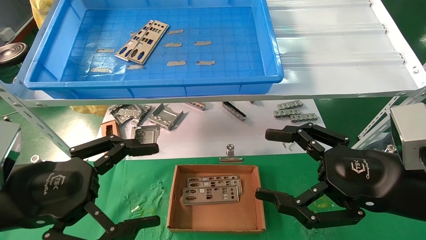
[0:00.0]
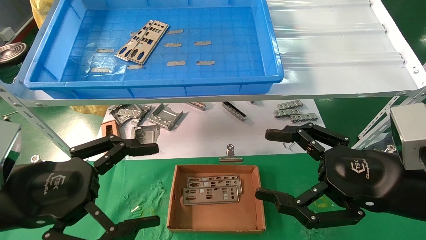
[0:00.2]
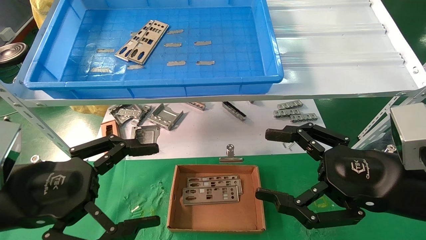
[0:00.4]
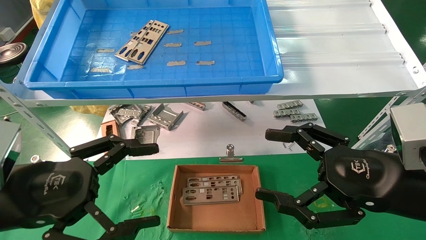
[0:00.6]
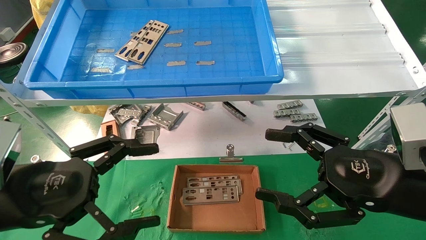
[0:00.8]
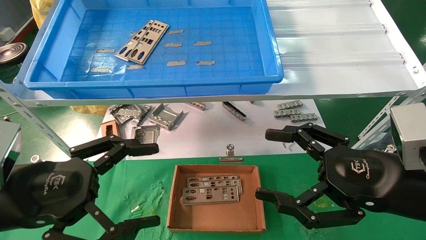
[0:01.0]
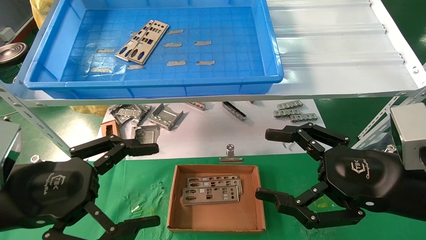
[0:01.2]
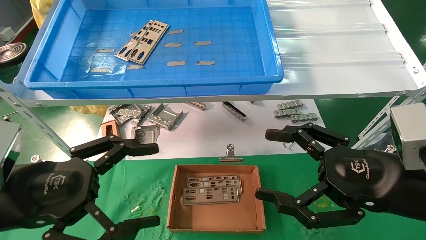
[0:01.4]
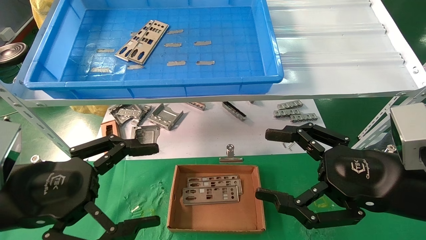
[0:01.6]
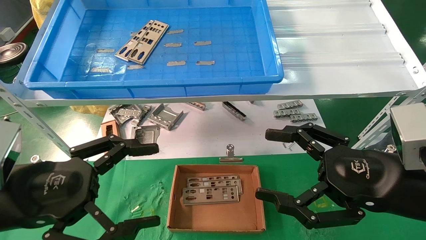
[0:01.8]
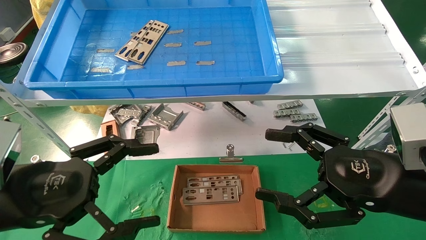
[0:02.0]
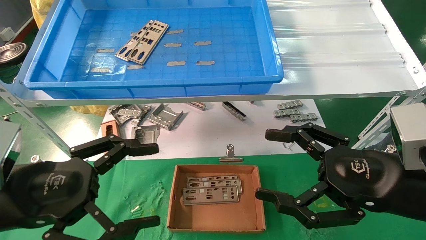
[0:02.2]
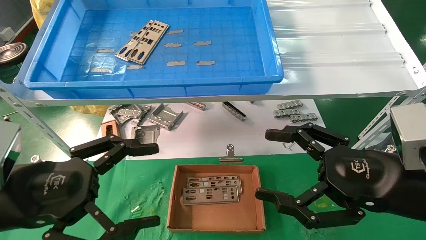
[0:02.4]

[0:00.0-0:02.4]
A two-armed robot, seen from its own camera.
Task of the whole recording: pick up the parts on the tray and put them in the cardboard box.
0:00.0 to 0:02.4: Neither gripper changes place.

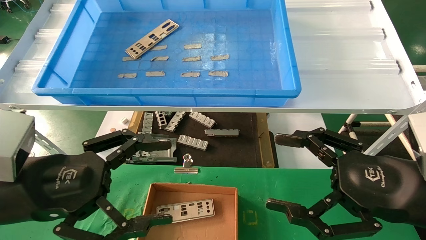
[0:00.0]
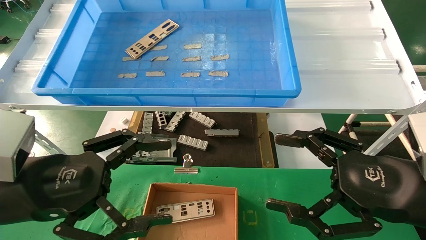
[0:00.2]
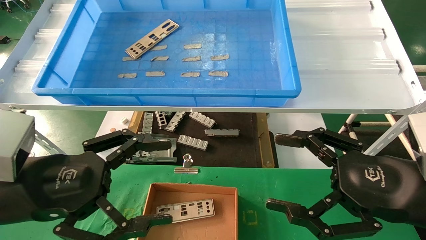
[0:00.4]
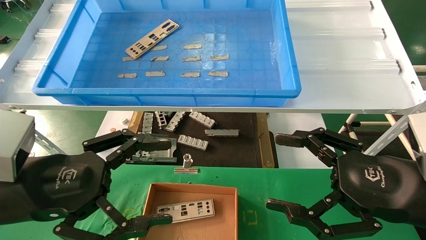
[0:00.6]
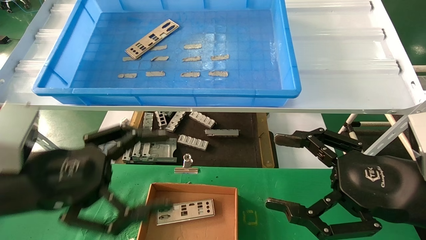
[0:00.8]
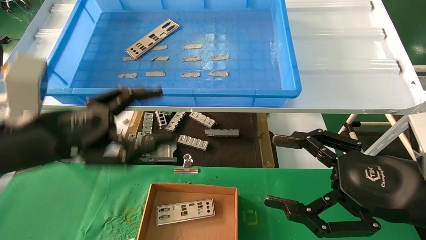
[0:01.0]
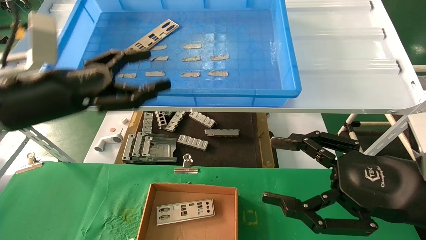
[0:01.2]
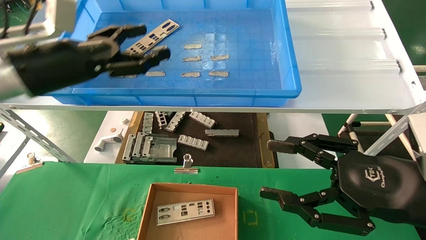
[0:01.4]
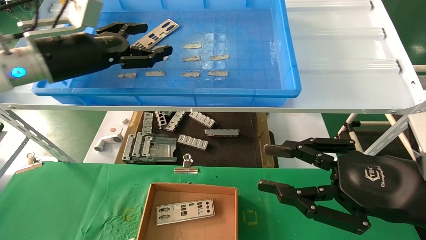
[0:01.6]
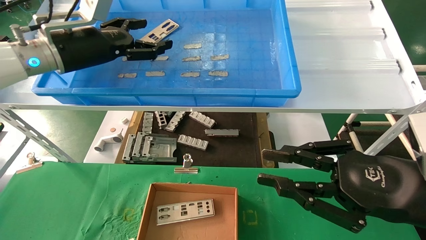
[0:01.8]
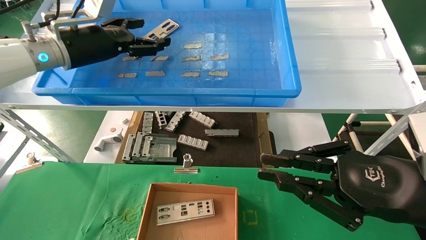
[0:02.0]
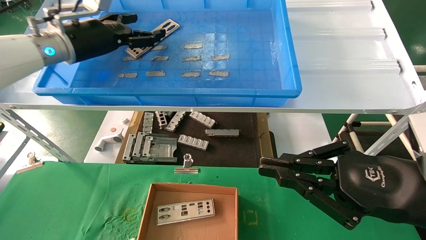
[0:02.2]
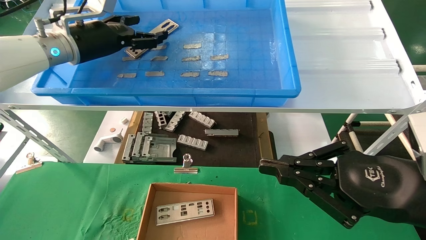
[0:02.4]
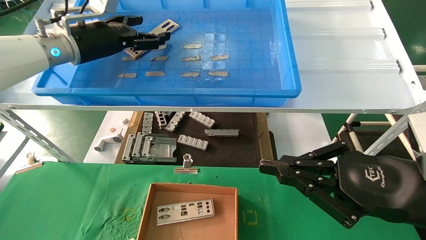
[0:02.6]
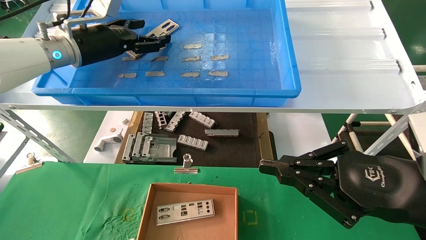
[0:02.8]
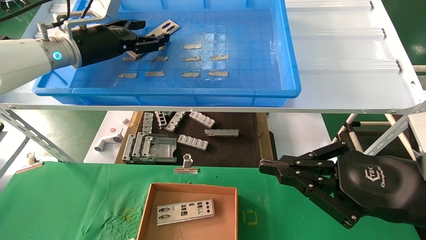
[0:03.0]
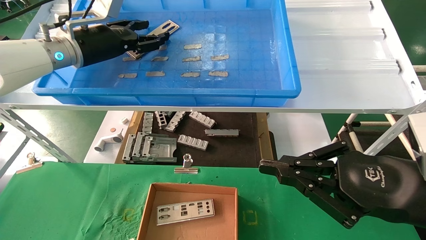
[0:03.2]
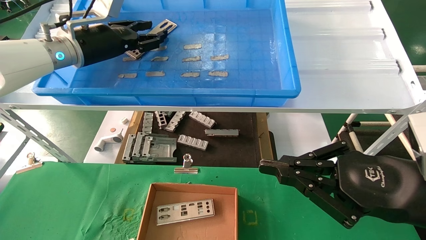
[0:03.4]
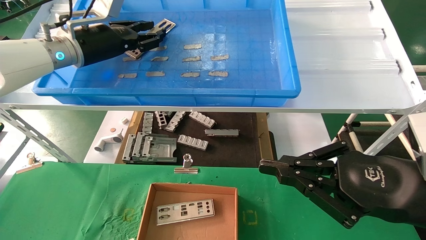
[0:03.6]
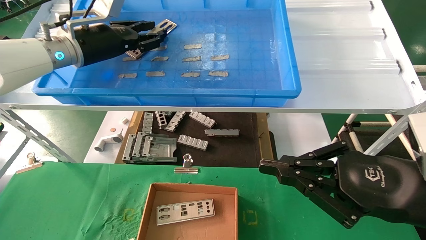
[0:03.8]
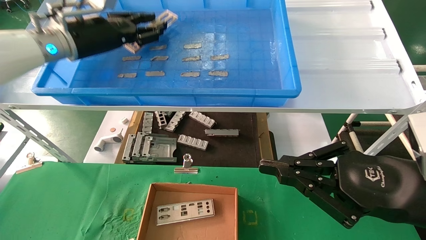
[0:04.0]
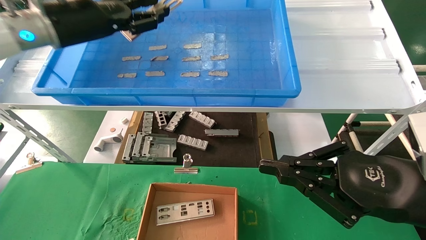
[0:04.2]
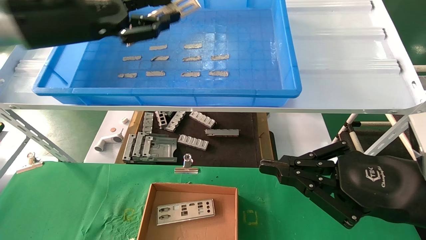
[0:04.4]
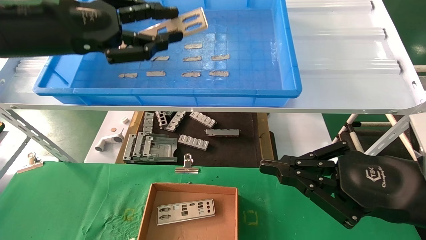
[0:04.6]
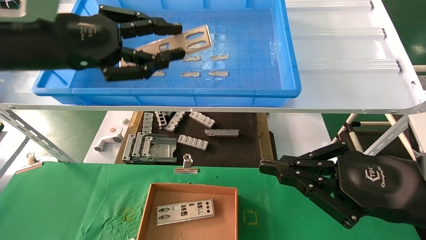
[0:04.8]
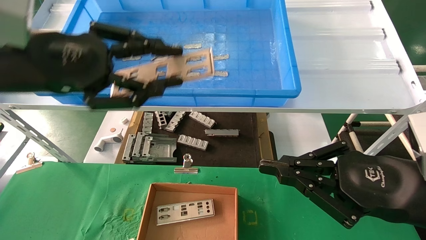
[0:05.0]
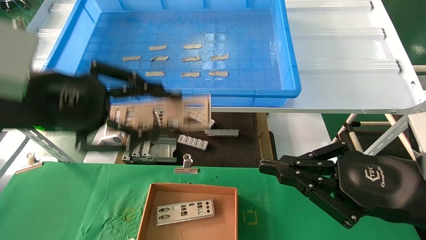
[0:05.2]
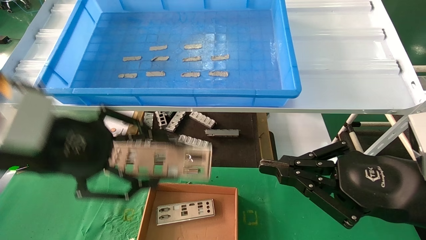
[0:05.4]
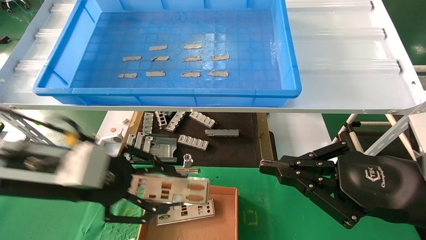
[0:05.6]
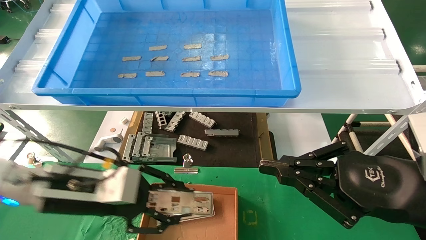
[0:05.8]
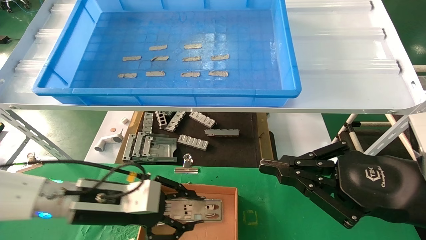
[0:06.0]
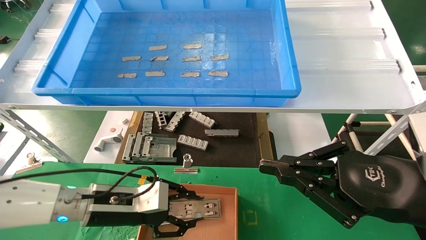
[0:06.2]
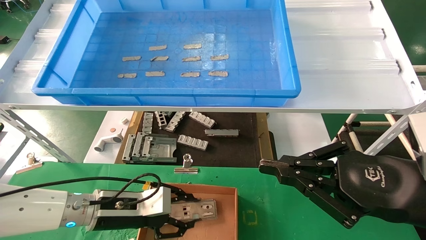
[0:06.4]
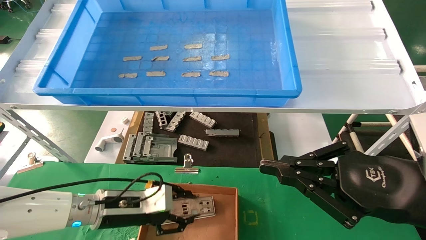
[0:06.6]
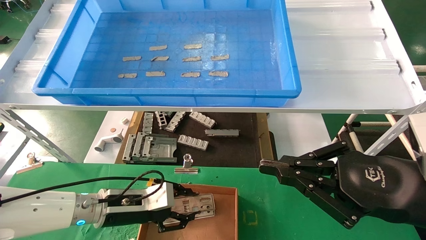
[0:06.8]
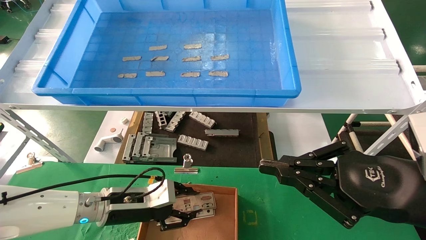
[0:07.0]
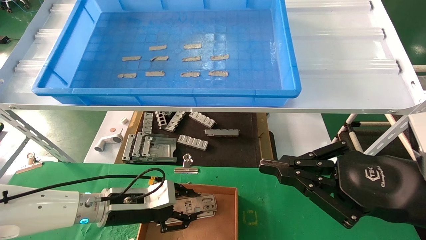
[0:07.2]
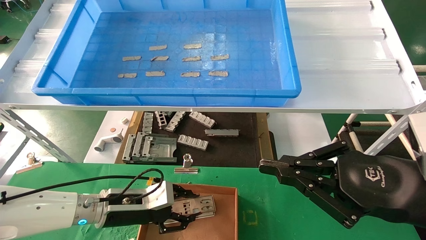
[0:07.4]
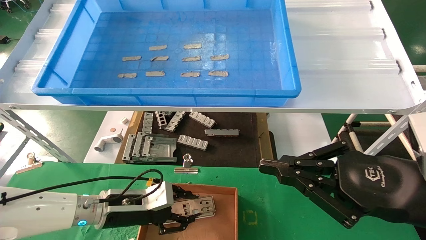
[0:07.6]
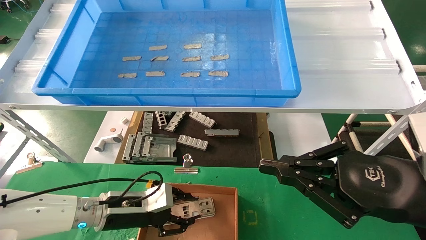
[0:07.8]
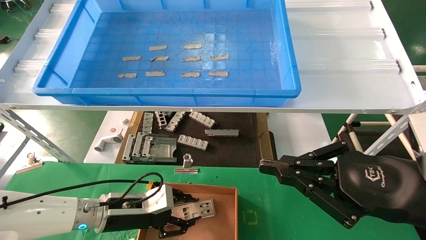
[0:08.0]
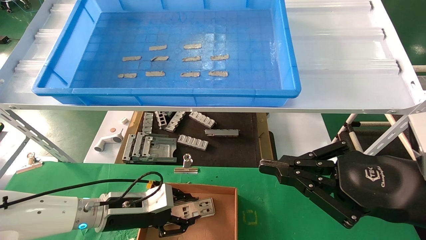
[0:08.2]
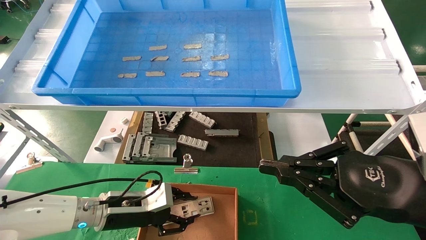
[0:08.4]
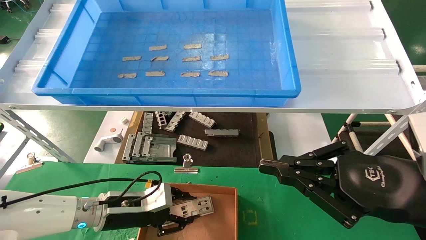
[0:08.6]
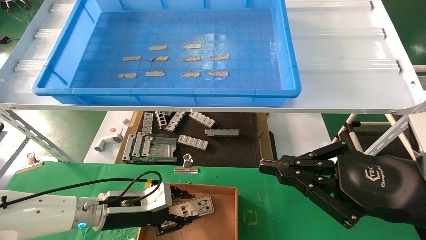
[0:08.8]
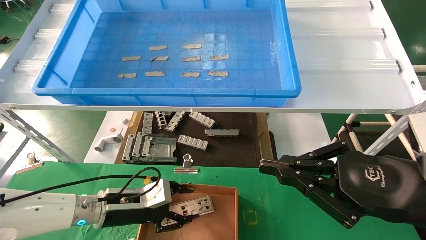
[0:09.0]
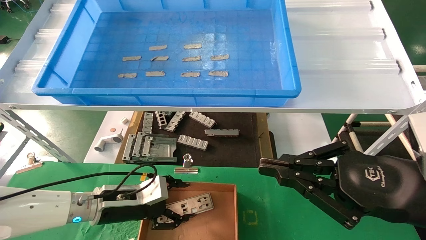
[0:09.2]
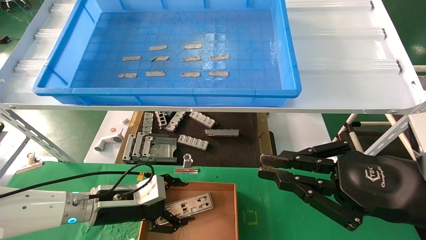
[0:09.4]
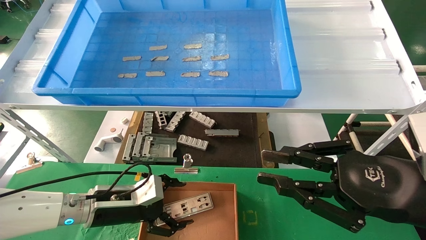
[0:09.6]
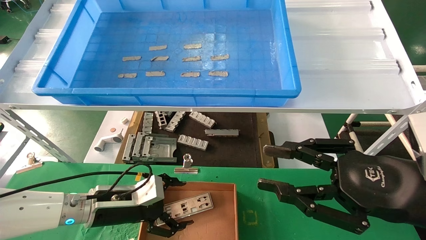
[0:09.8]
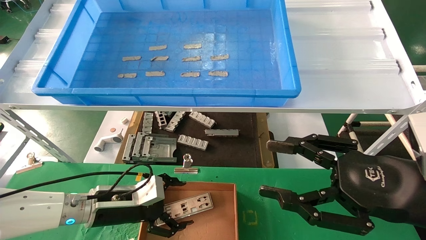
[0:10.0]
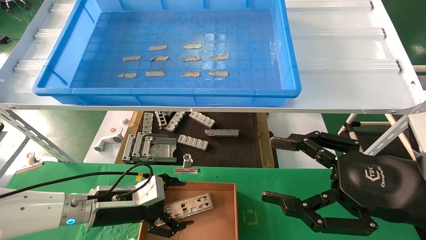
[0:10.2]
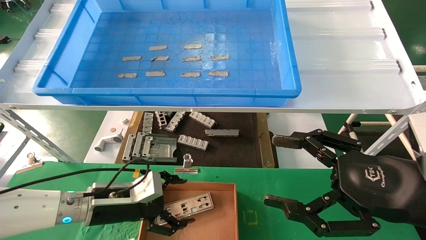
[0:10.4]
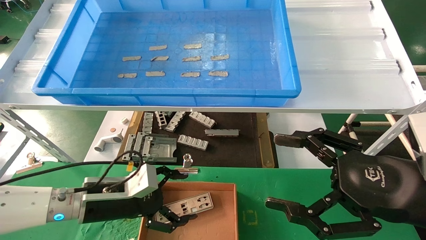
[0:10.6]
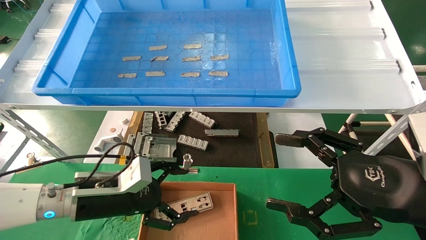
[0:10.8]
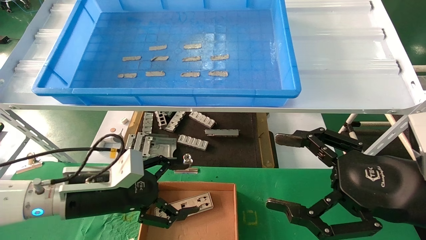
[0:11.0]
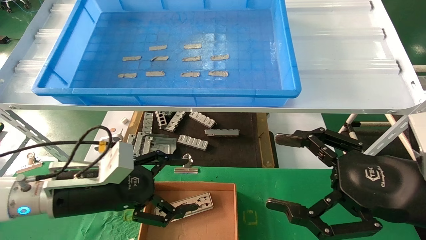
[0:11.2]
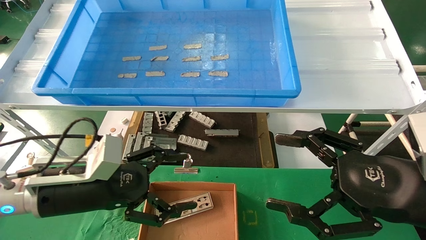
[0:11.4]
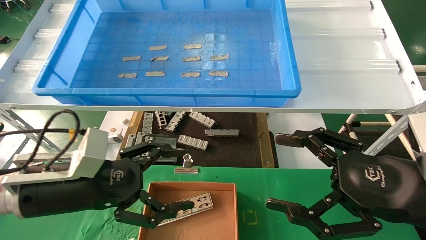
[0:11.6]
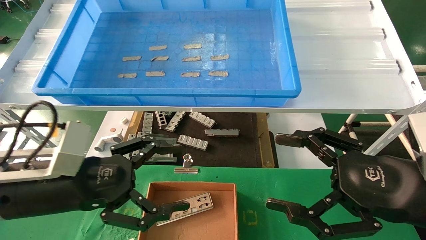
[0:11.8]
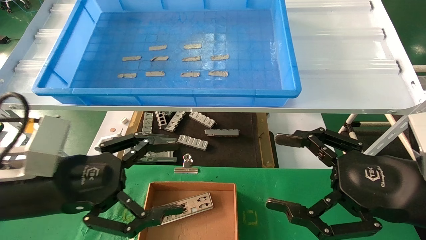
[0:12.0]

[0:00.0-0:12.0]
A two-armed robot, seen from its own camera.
Task of the whole recording: pick up the parts on the tray and put them in the cardboard box.
Step, 0:01.2 to 0:04.0: Pick up the IO bracket from the container box.
Step, 0:04.2 to 0:08.8: Place the IO bracket into the ingredient slot.
0:00.0 to 0:01.6: The left gripper heads forward and upward, covering roughly 20 cm; the right gripper closes its fingers.
0:01.6 to 0:03.0: The right gripper closes its fingers; the left gripper heads forward, covering roughly 5 cm.
0:03.0 to 0:04.4: The left gripper is displaced backward by roughly 10 cm, and closes its fingers.
0:04.4 to 0:06.0: The left gripper heads downward, covering some 25 cm.
0:06.0 to 0:07.6: The left gripper moves downward, some 10 cm.
0:07.6 to 0:09.0: The two grippers keep their place.
0:09.0 to 0:10.4: The right gripper opens its fingers, while the left gripper opens up.
0:10.4 to 0:12.0: The left gripper shifts about 15 cm upward and backward.

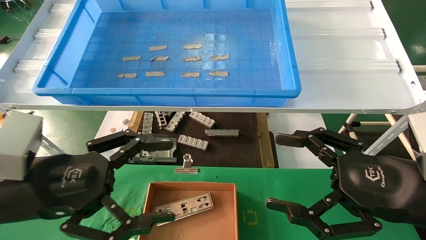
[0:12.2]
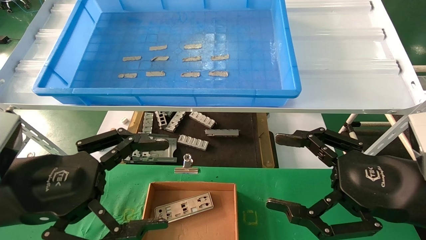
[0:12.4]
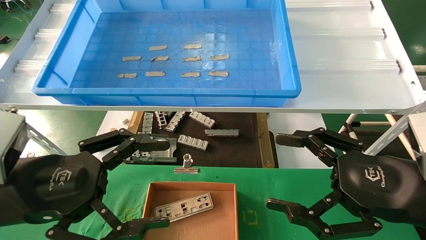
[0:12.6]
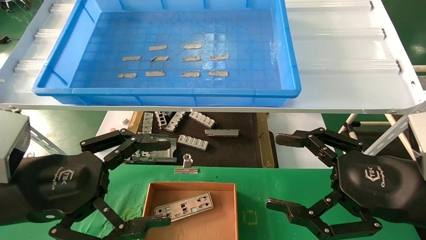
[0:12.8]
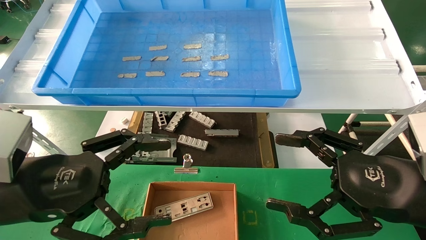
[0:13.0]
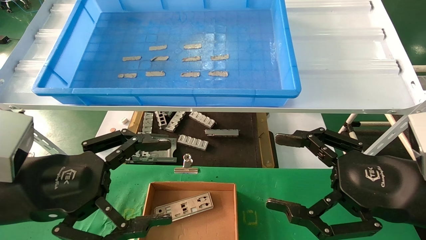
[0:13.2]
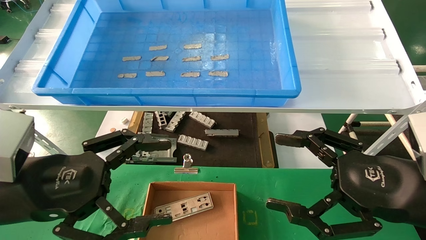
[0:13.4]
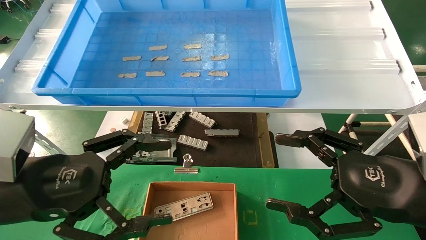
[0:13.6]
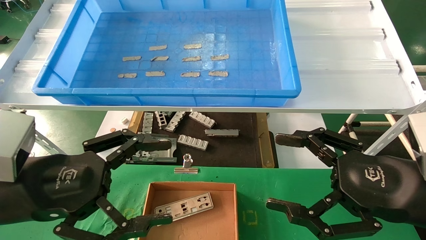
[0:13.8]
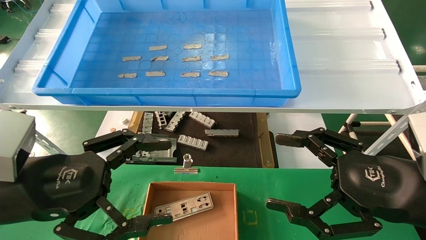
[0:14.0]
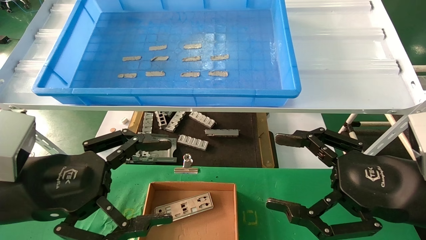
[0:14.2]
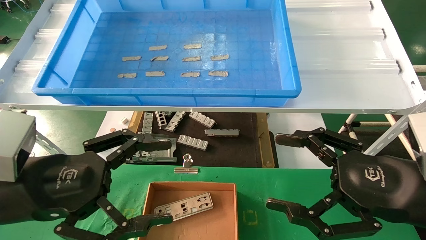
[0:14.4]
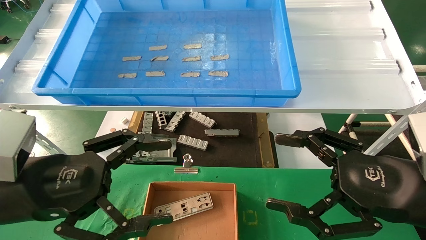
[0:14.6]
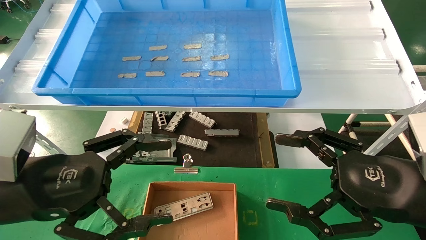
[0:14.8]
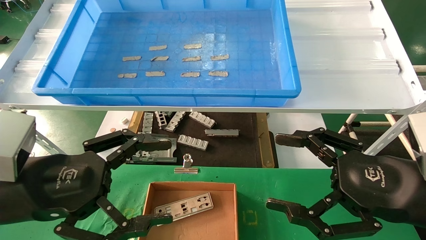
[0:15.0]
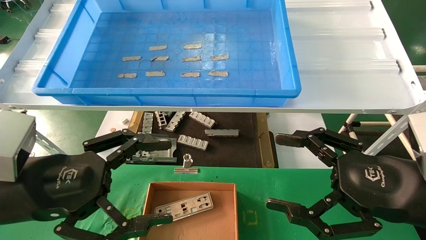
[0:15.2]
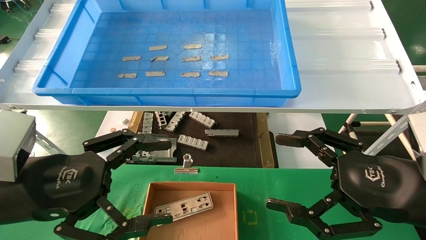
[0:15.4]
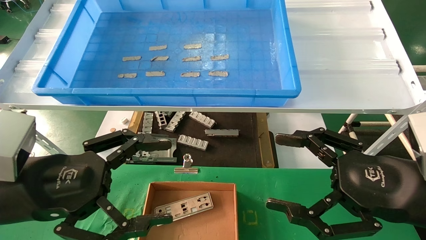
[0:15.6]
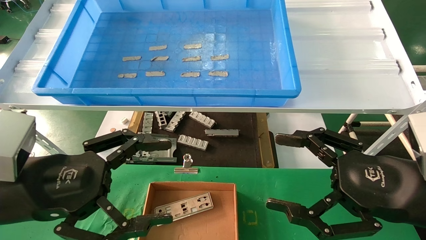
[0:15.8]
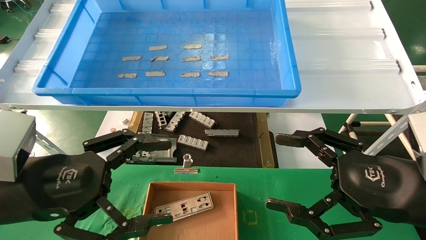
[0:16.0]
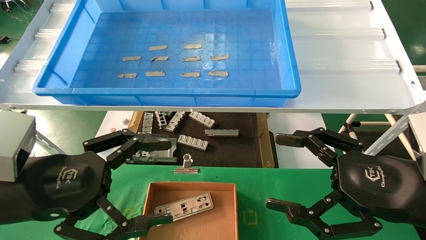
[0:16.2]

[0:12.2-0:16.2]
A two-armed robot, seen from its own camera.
Task of the whole recording: pick up the parts on the tray and put them in the cardboard box.
0:12.2 to 0:16.2: Both grippers stay about where they are.
